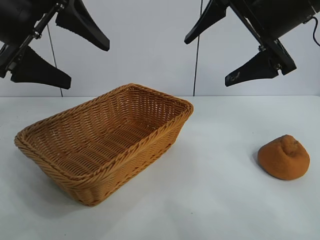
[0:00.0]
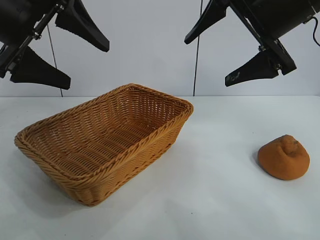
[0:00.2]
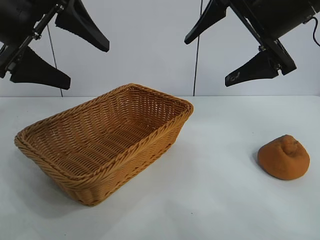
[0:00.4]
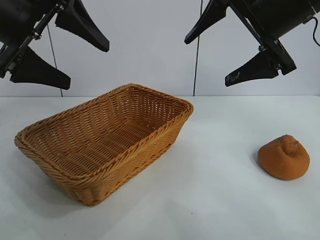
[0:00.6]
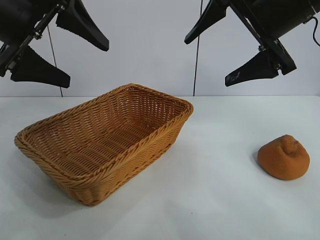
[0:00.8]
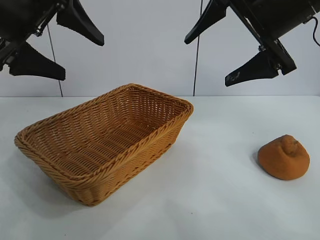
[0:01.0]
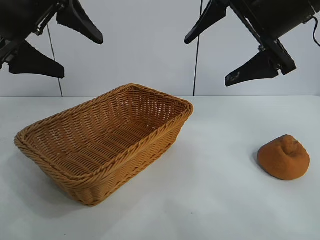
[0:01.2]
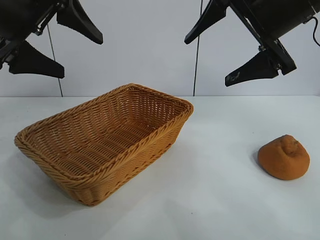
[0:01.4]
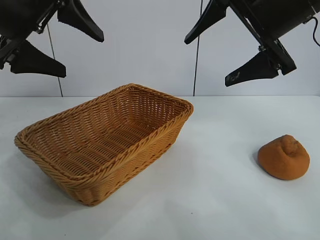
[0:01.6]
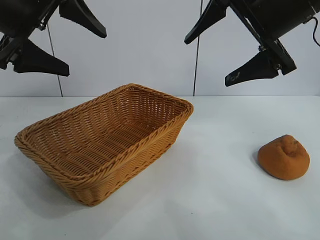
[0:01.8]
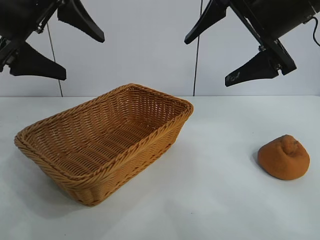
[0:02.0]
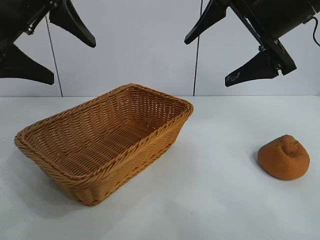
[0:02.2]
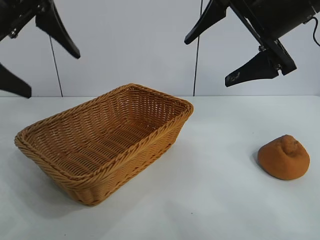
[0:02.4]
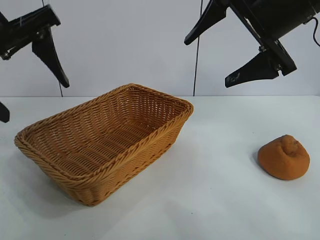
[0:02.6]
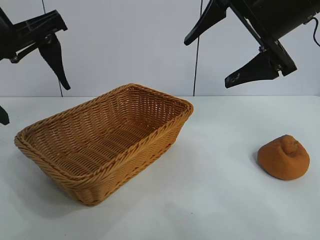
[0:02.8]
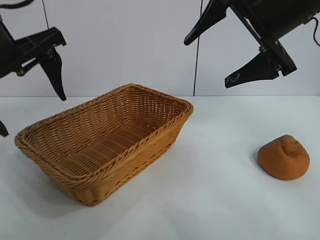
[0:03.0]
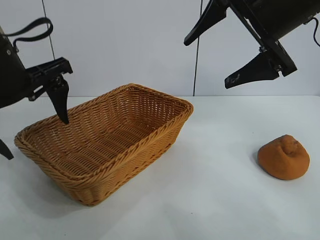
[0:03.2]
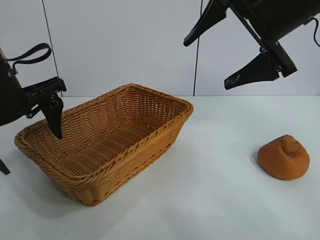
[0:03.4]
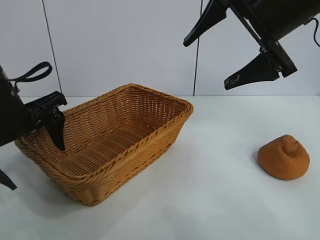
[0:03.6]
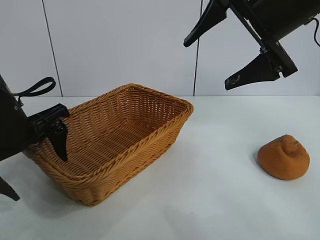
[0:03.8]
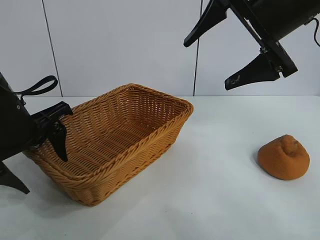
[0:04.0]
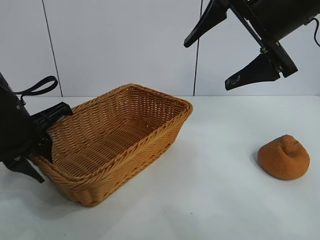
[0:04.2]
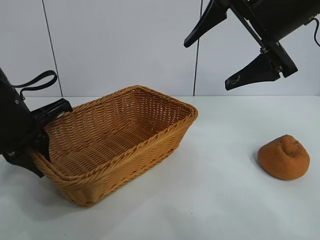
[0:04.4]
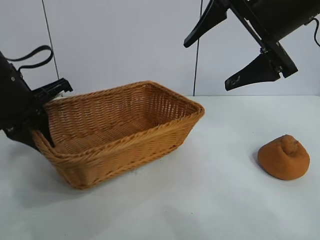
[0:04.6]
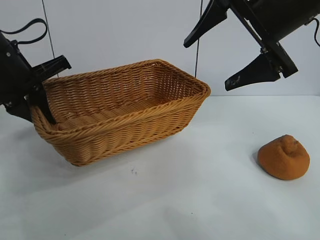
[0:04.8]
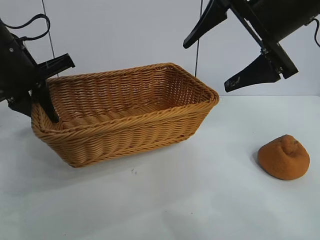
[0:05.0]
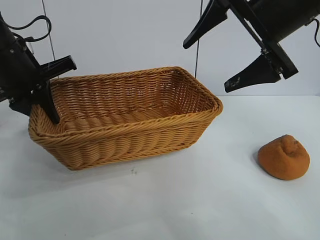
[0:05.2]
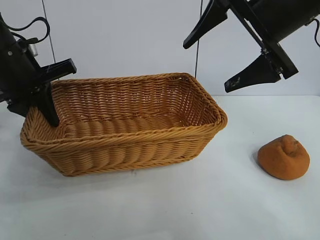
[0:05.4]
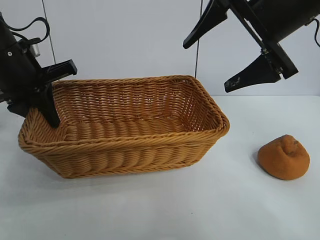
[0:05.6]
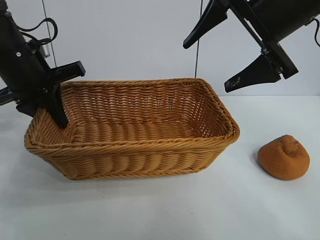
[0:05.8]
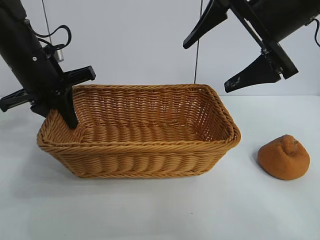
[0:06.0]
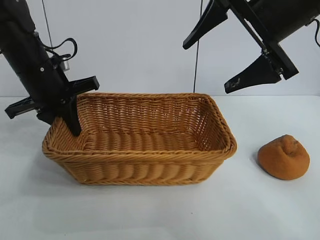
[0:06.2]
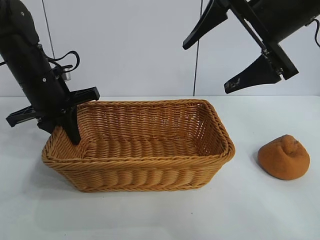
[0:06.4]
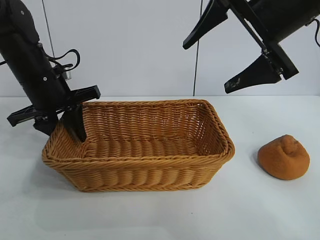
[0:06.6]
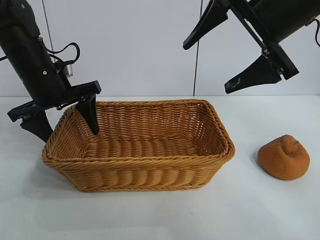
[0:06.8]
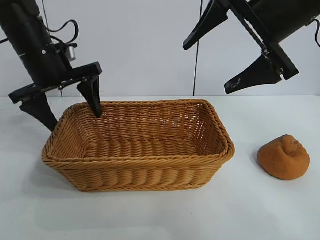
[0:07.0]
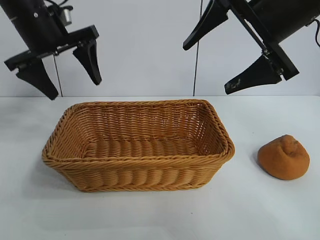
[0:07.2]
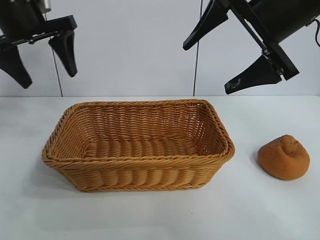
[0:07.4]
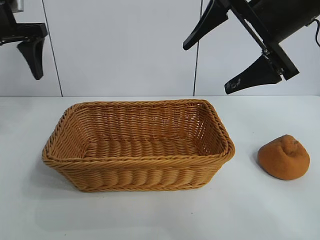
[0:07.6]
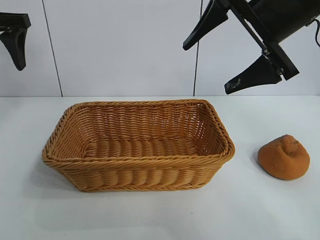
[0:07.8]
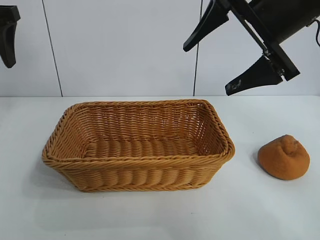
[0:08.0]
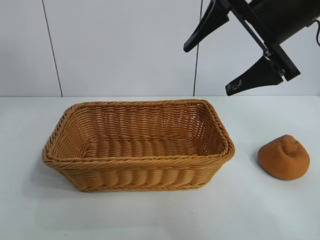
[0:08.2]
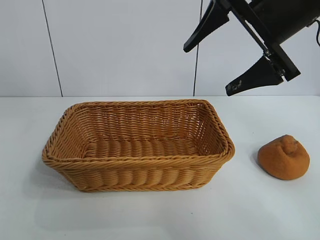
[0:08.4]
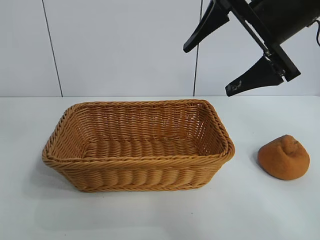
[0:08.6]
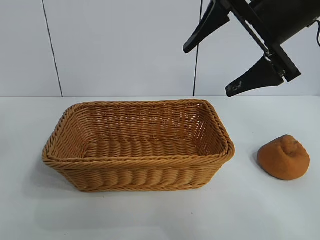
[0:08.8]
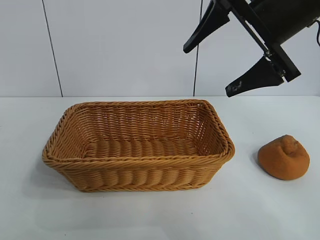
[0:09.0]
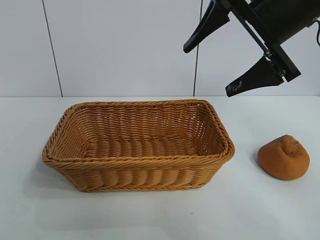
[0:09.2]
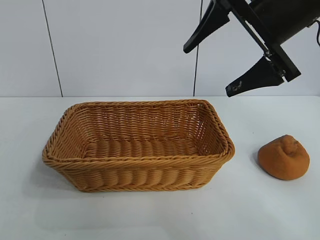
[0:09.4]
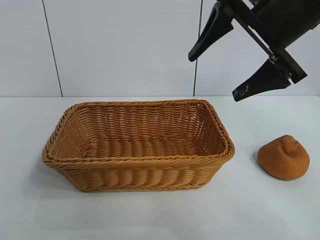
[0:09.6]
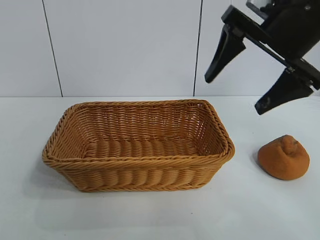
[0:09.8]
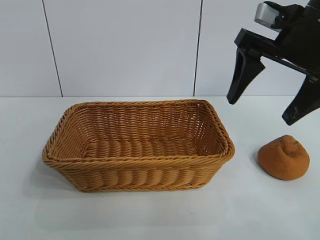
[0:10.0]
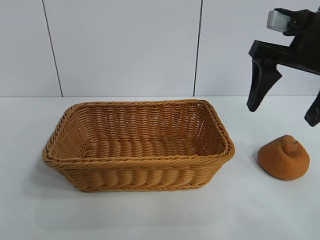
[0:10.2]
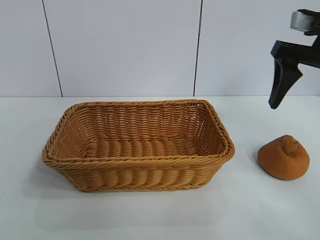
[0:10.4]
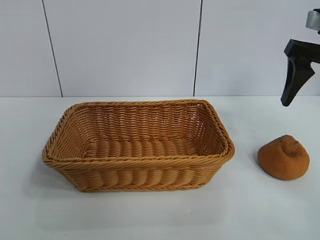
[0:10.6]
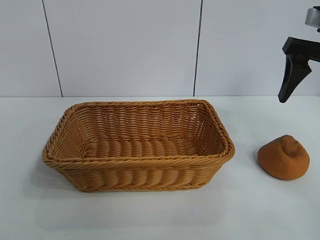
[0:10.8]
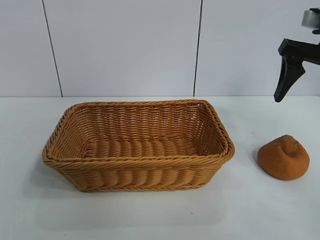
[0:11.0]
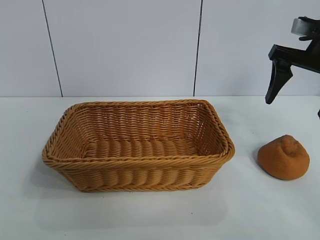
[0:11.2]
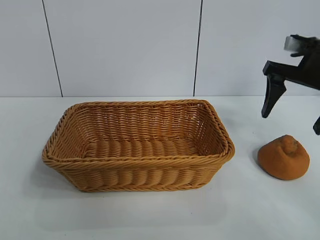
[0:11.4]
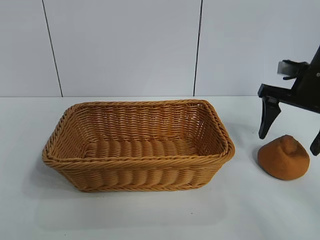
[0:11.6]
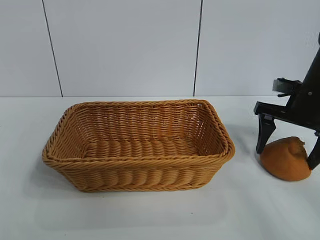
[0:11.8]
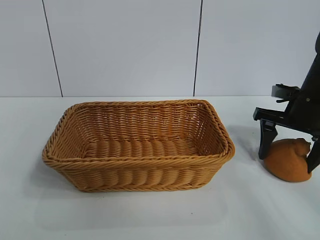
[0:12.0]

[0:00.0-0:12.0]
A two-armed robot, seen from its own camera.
Task of the whole recording: pick up the orange and put it into the basket.
Step, 0:00.8 to 0:04.2: Grasp the basket with left gripper.
Step, 0:04.4 to 0:07.2: Place the basket in the center of view with left gripper.

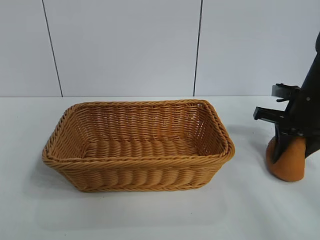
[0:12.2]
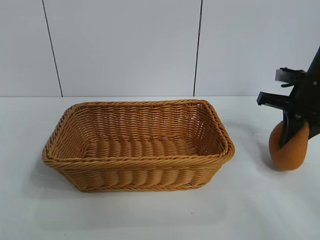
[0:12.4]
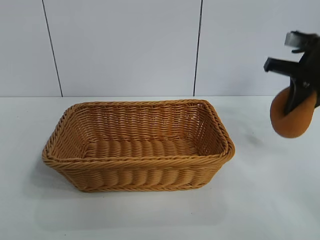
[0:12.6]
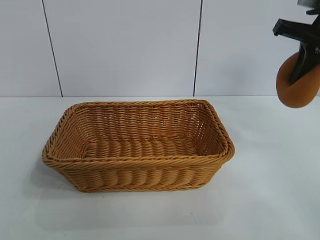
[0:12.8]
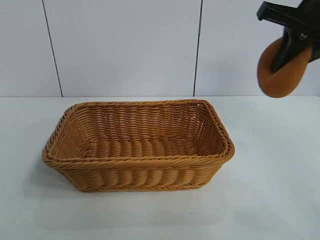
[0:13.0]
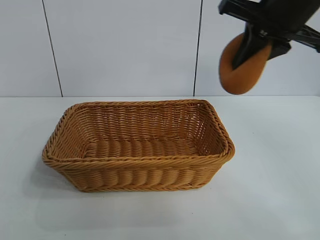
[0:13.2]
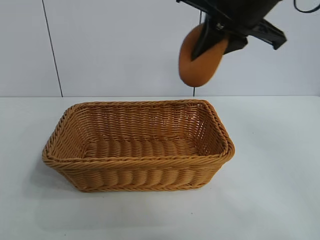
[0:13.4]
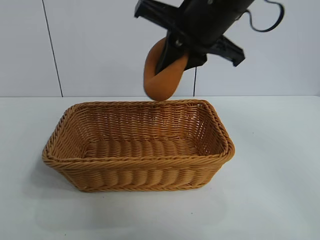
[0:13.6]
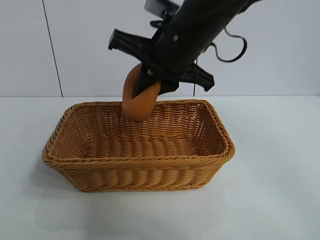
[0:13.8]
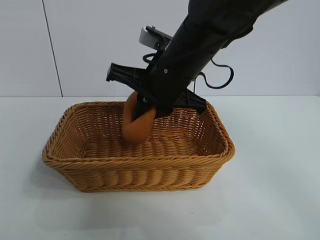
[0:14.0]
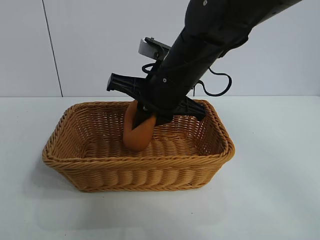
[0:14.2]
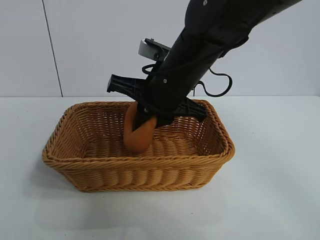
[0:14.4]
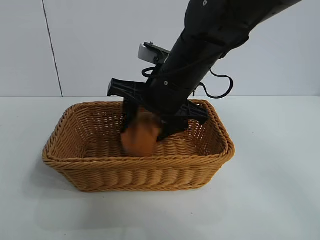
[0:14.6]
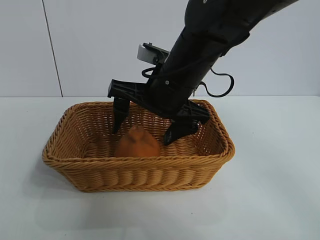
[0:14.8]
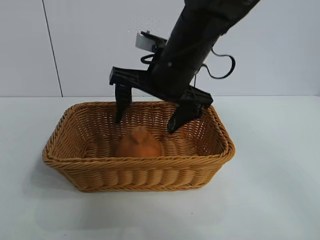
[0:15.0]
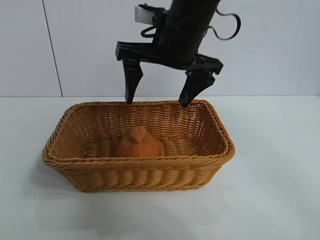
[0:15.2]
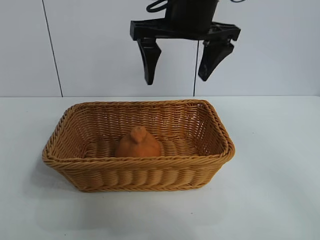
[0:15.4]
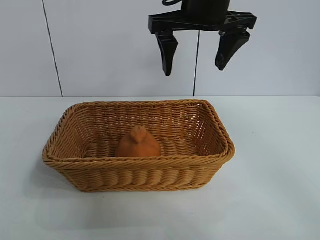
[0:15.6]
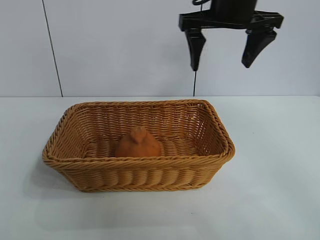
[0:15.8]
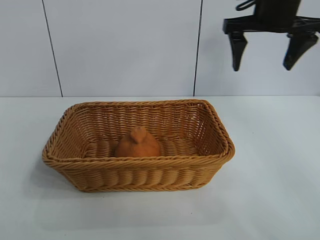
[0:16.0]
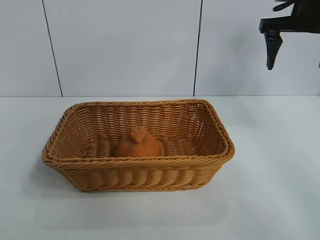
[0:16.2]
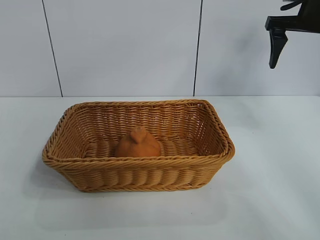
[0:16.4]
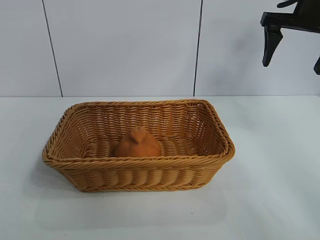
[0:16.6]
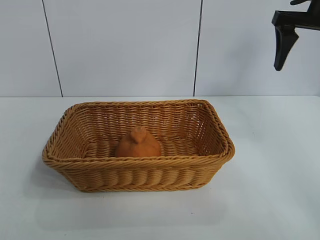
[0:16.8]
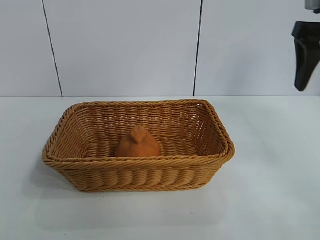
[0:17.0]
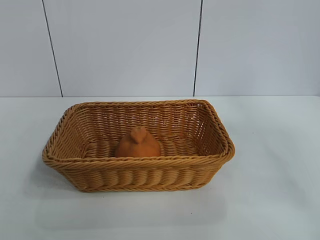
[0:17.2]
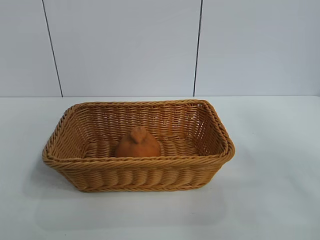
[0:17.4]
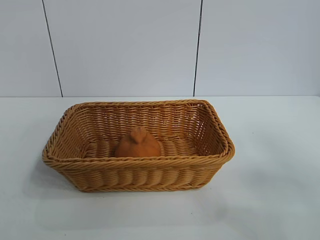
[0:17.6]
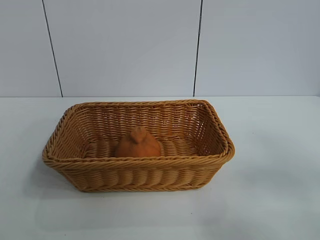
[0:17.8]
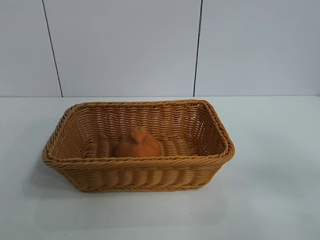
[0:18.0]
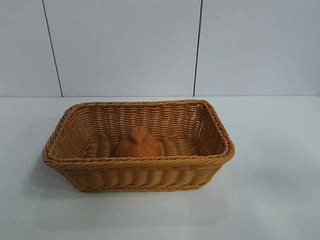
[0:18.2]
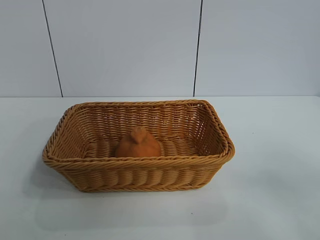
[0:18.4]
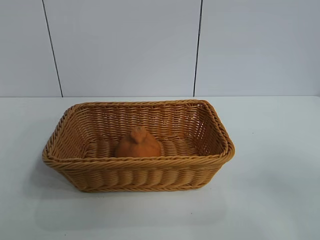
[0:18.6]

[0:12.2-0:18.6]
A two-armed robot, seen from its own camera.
Task of the whole recording: pick up the orange and put it into the basket.
Step, 0:12.4 to 0:15.0: Place the orange in the basket with right gripper.

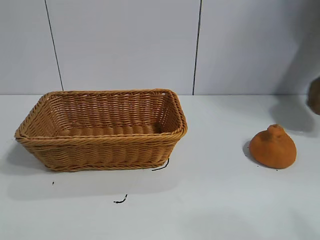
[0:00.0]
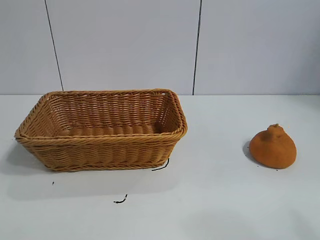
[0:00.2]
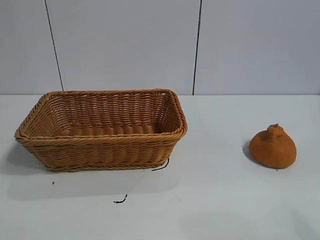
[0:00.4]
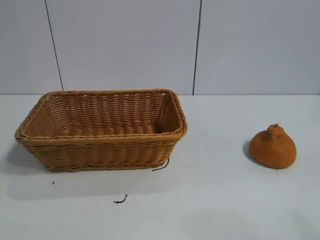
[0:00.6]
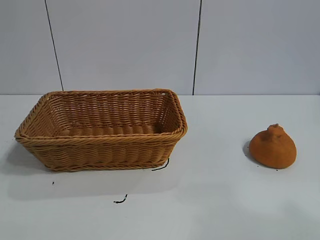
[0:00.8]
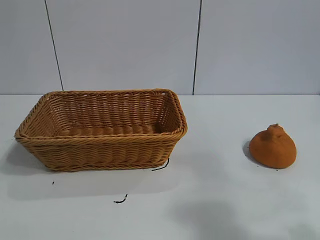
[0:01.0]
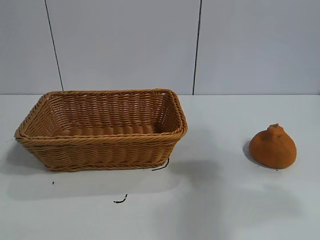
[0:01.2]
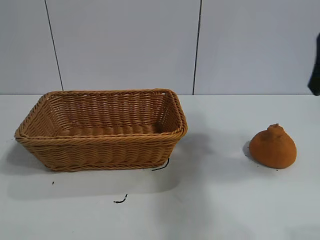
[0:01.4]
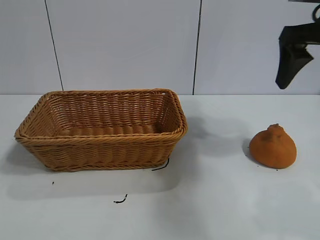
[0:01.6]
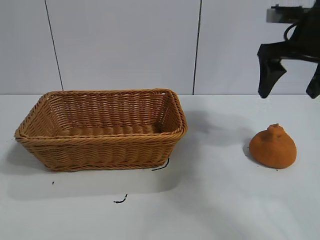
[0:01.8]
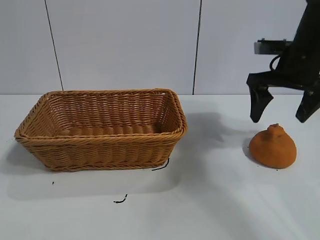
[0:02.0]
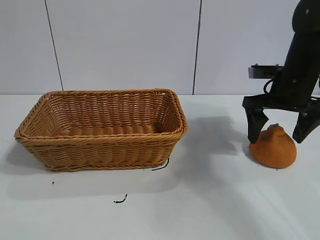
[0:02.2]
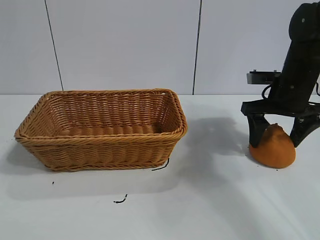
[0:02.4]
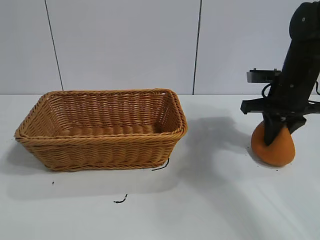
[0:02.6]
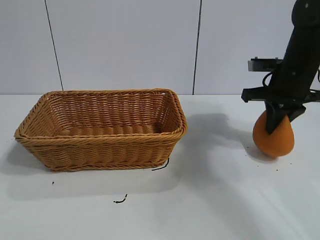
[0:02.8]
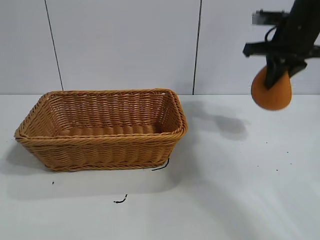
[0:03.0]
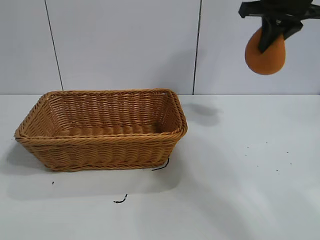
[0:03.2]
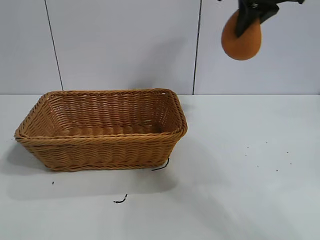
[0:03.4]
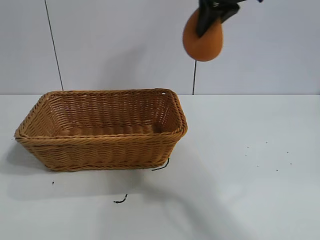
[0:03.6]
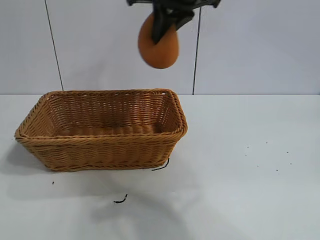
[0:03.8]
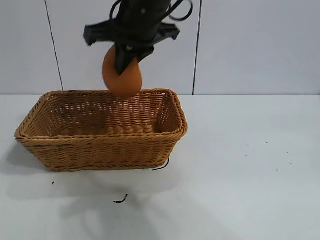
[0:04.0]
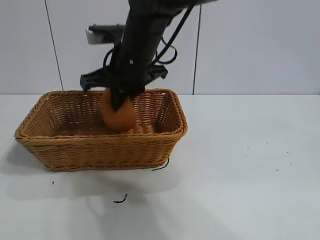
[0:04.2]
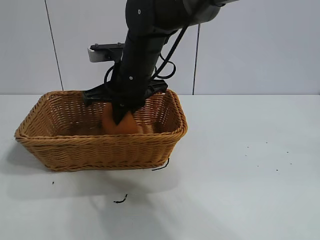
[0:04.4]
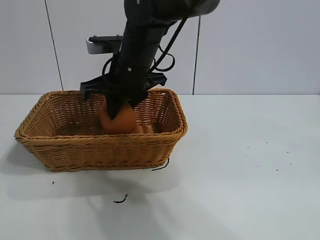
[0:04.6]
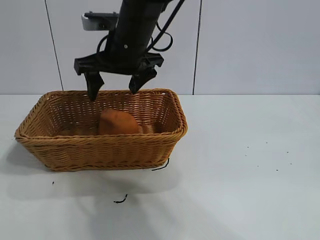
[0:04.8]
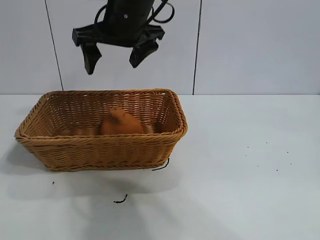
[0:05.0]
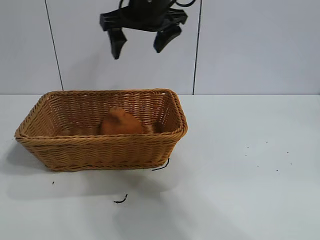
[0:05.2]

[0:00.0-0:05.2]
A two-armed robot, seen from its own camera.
Task of the whole recording: pick up the orange and put it into the basket.
Step, 0:00.6 to 0:02.6: Grasp the orange with right gripper.
Step, 0:03.0 to 0:04.6: Place the orange in the basket with right gripper.
